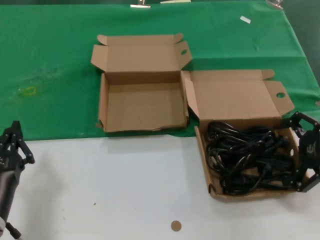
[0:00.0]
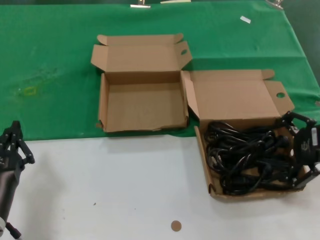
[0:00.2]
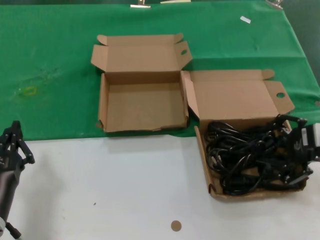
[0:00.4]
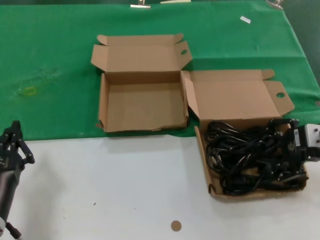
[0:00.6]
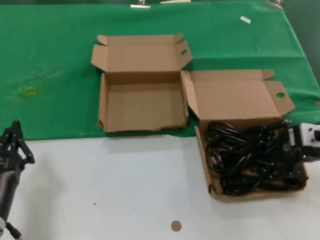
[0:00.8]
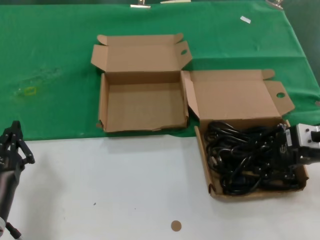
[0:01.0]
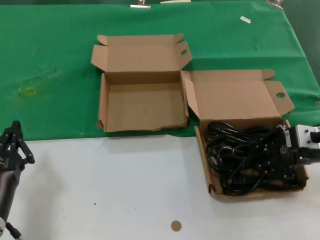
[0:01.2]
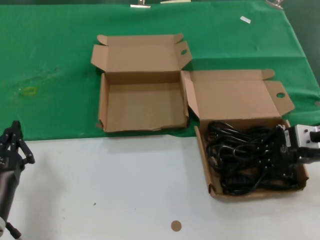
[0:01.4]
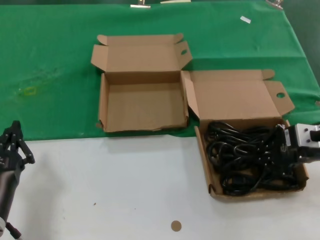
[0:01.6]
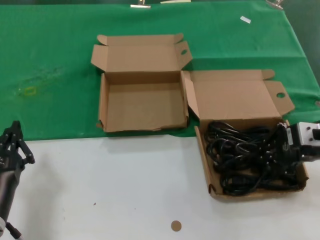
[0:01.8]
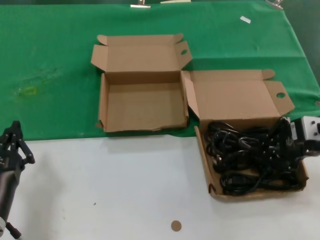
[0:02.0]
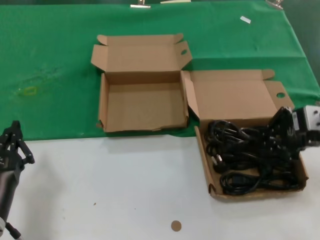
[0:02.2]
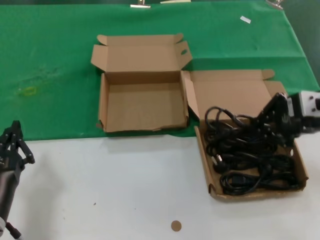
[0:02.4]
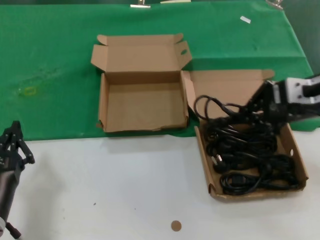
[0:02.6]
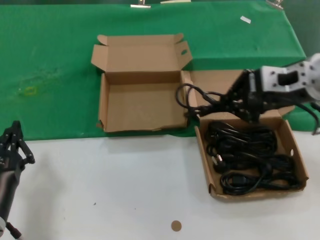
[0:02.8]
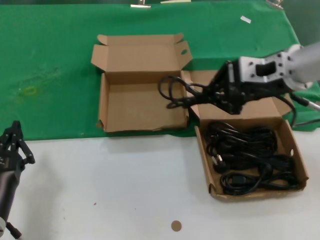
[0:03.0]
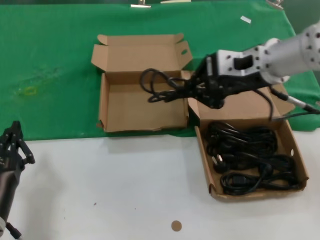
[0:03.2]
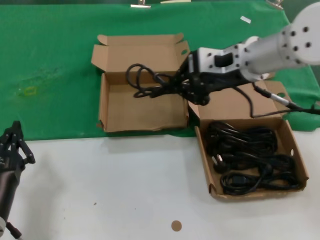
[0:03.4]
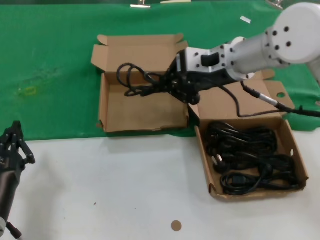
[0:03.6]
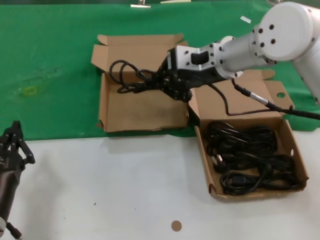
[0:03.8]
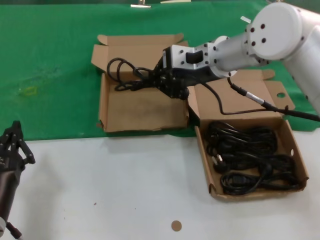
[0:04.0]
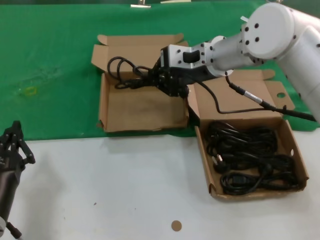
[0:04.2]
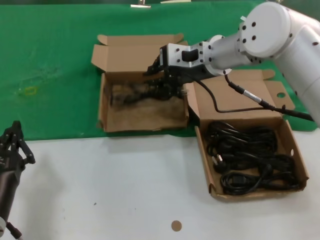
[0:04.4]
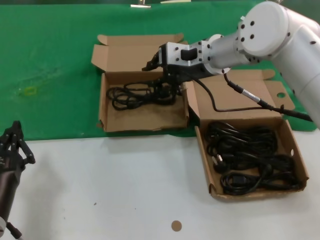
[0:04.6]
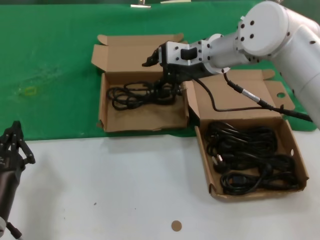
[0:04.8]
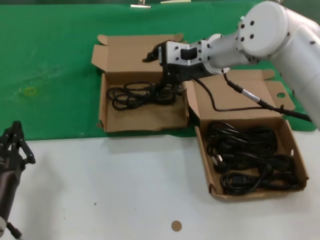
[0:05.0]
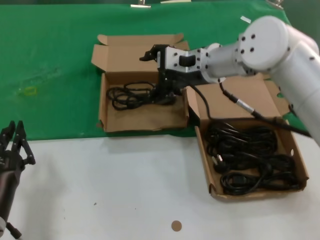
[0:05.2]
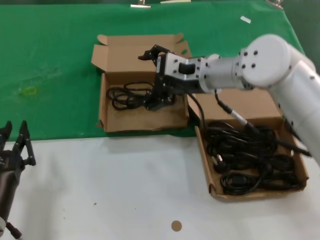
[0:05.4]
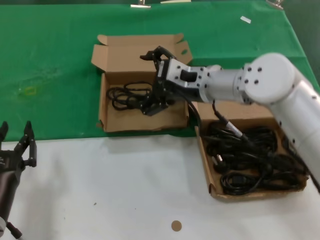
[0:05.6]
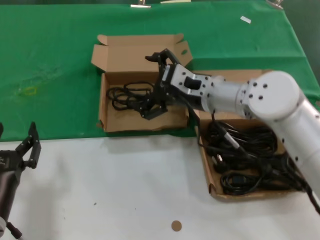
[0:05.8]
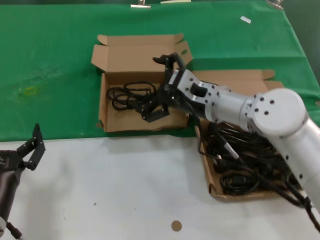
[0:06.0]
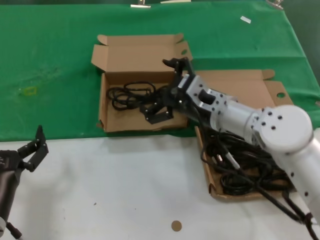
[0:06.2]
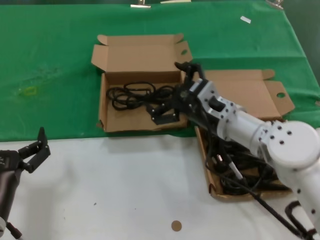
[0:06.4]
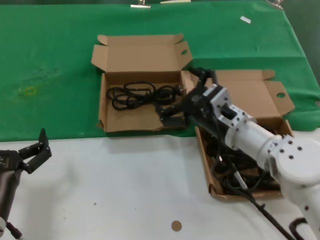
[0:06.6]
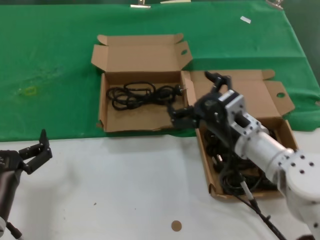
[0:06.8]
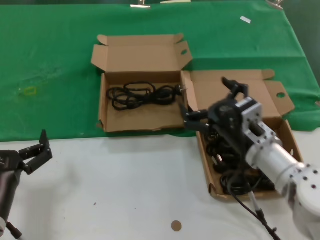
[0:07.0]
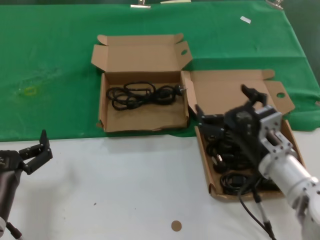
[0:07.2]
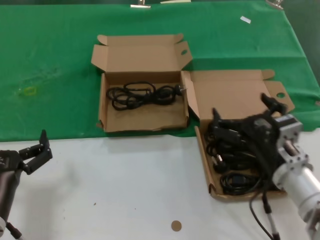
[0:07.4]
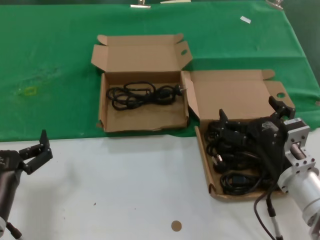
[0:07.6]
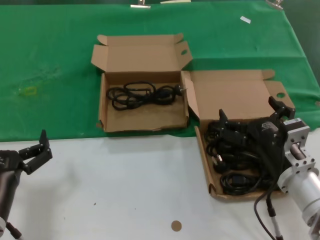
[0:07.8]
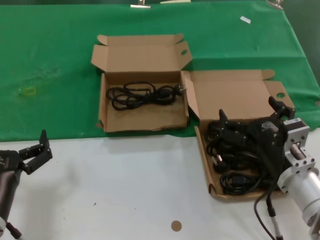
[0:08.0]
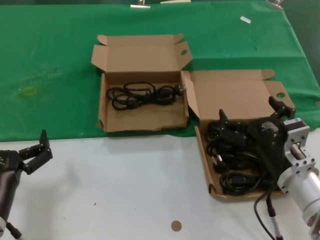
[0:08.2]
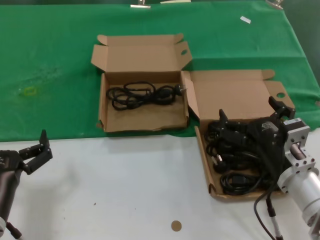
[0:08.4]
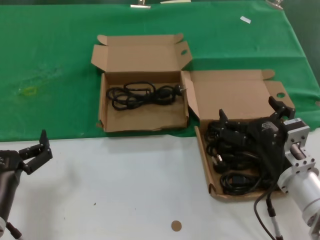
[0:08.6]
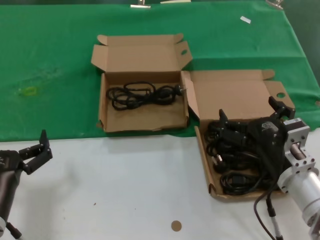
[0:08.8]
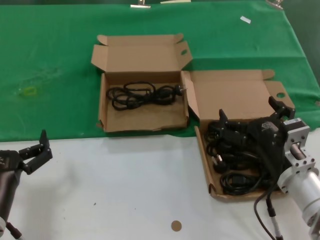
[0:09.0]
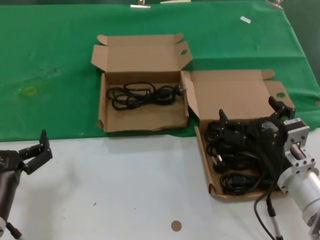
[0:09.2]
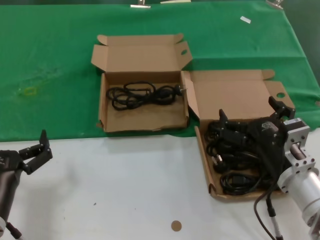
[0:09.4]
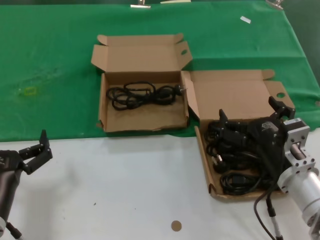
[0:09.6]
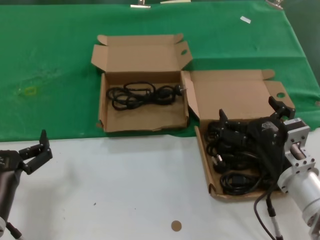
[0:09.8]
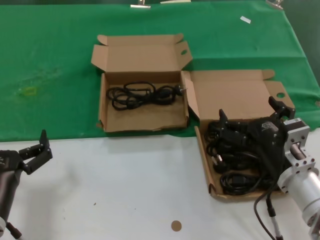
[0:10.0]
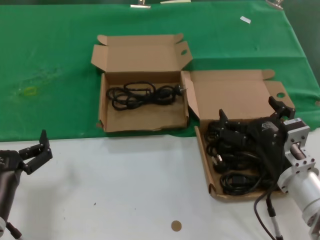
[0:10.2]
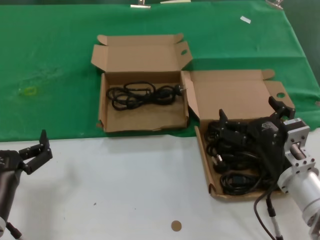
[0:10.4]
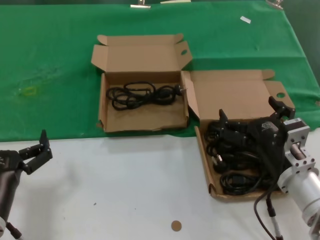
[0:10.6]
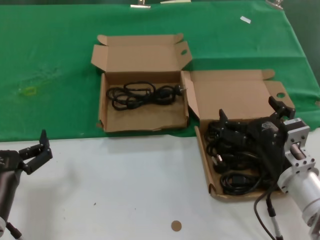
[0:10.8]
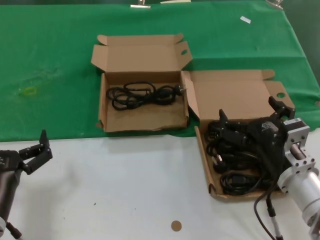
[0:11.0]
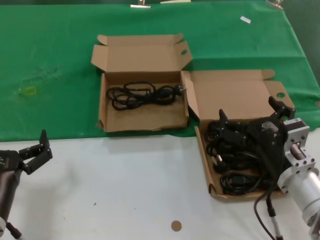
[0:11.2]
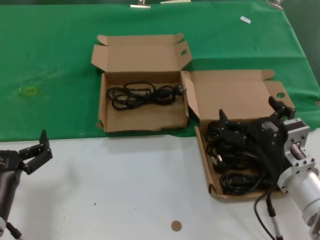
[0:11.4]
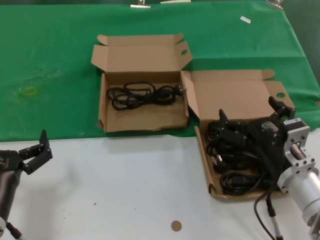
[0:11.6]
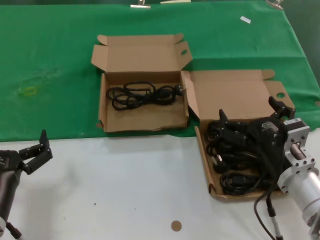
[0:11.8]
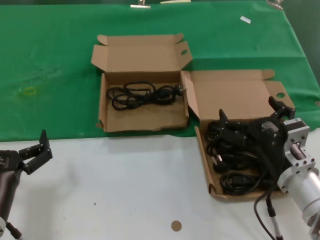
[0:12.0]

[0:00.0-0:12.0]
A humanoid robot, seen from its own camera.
Task of the whole recording: take the parts from the box containing them and put them into an empty box.
Step, 0:01.4 to 0:04.4: Place the data cable in the another box.
0:00.0 to 0:01.6: The right hand moves forward, roughly 5 cm.
0:01.6 to 0:03.0: The right hand goes some 15 cm upward and to the left.
0:03.0 to 0:04.4: The right hand goes about 15 cm to the left and forward.
0:04.4 to 0:06.0: The right hand is displaced downward and backward by about 10 cm.
0:06.0 to 0:07.6: The right hand goes roughly 20 cm backward, downward and to the right.
0:07.6 to 0:12.0: The two hands keep their place.

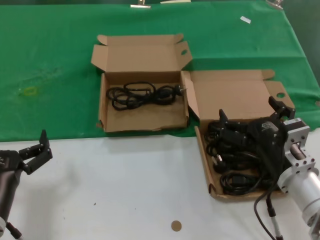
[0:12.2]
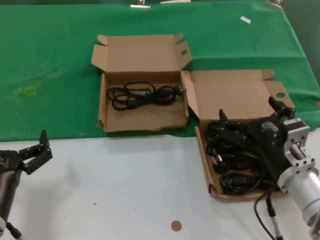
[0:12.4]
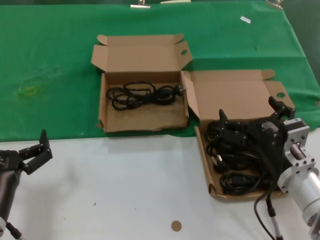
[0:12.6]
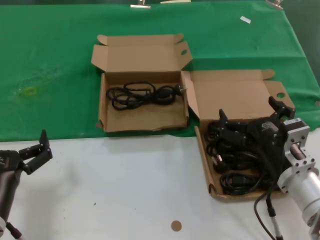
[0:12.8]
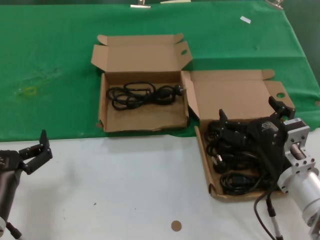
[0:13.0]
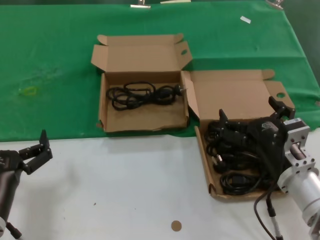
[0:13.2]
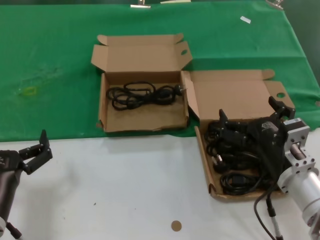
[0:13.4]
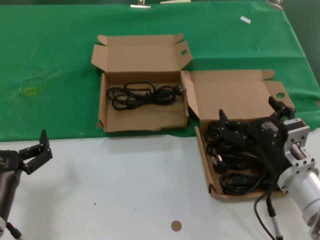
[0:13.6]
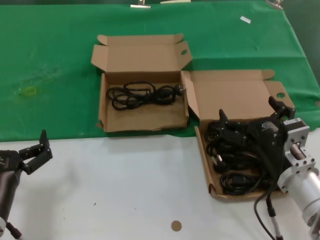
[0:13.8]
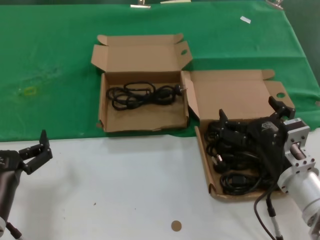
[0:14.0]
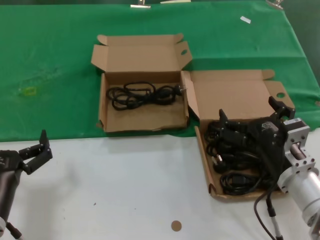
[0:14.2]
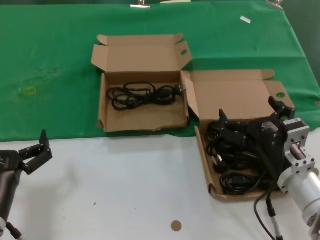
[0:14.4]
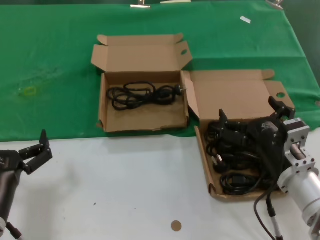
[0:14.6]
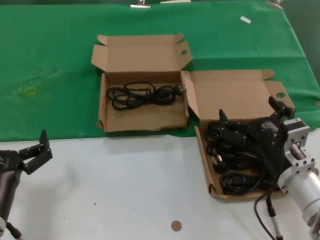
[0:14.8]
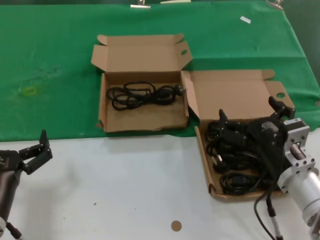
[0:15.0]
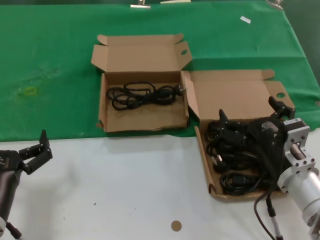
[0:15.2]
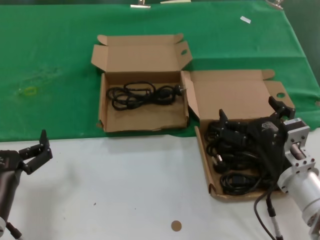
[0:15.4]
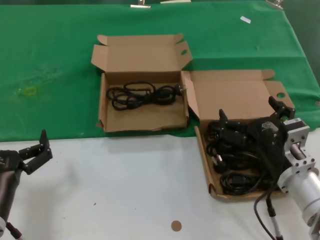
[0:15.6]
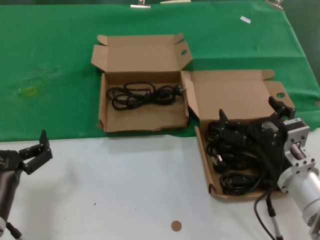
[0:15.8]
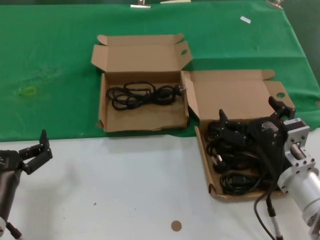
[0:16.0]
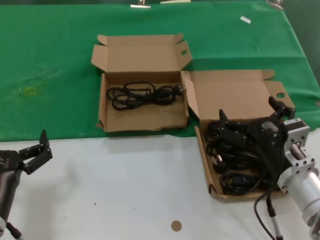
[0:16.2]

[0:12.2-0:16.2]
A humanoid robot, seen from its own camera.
Task of the whole recording: take the parts from the box containing them and put them into an empty box.
0:12.2 to 0:16.2: The two hands keep their place.
